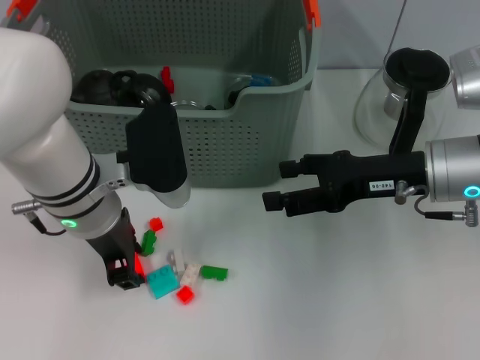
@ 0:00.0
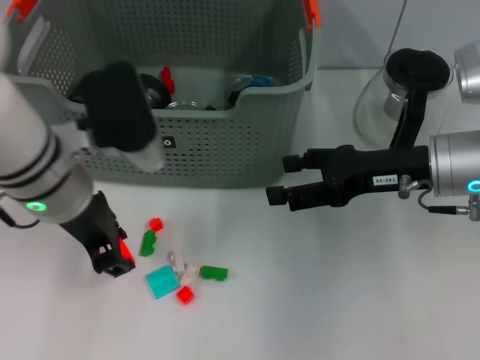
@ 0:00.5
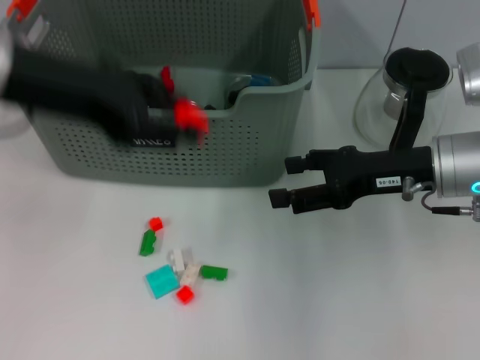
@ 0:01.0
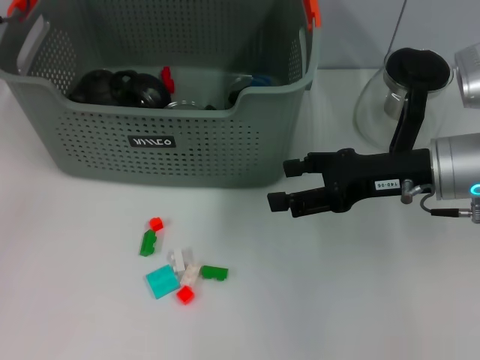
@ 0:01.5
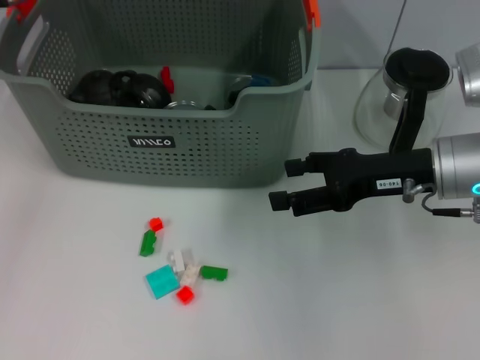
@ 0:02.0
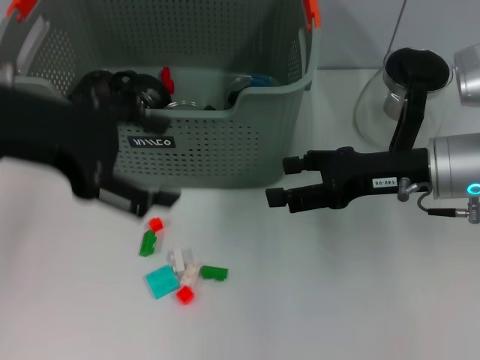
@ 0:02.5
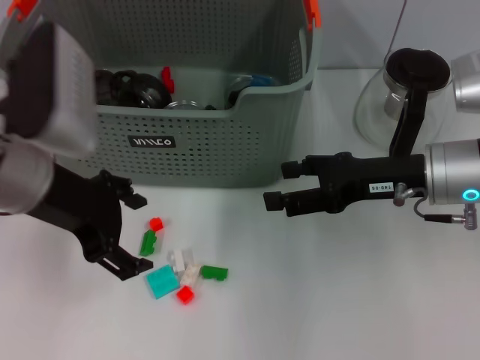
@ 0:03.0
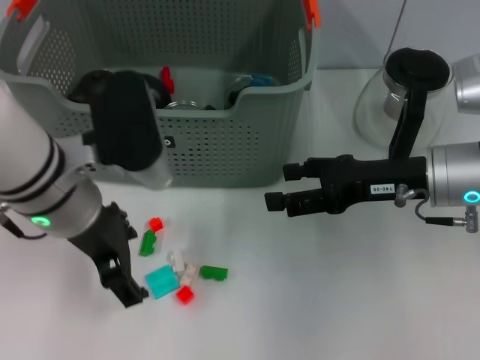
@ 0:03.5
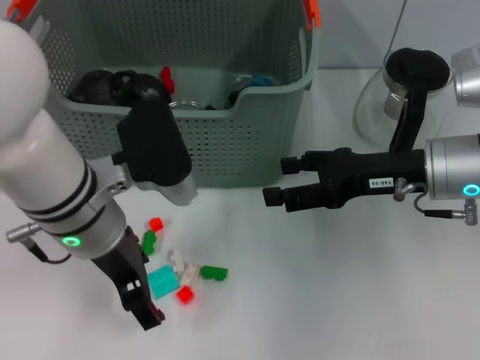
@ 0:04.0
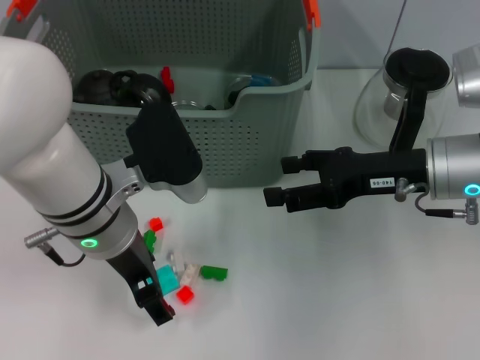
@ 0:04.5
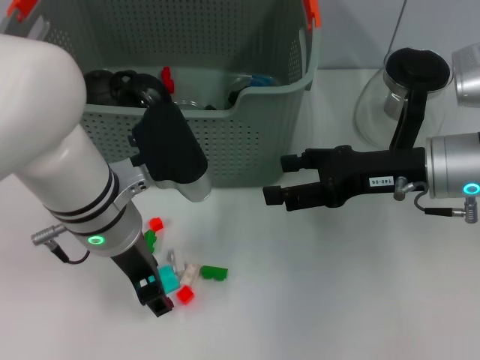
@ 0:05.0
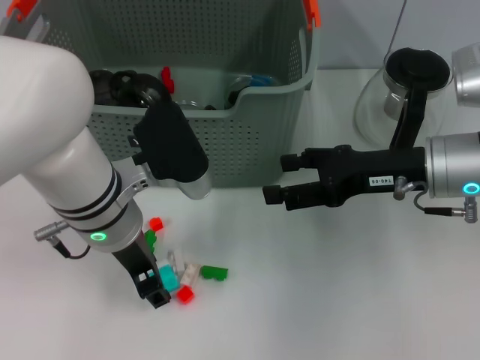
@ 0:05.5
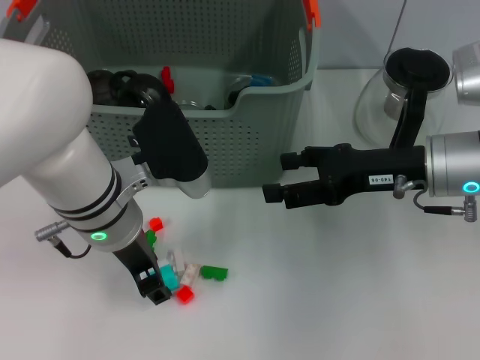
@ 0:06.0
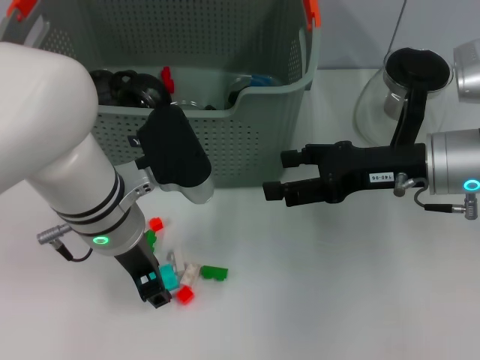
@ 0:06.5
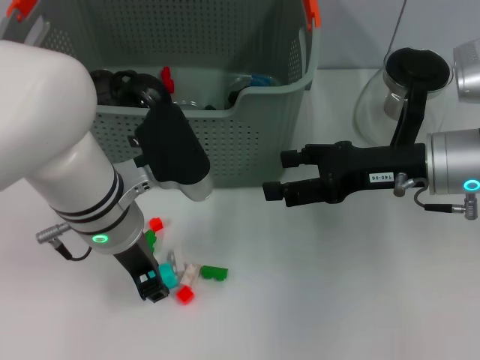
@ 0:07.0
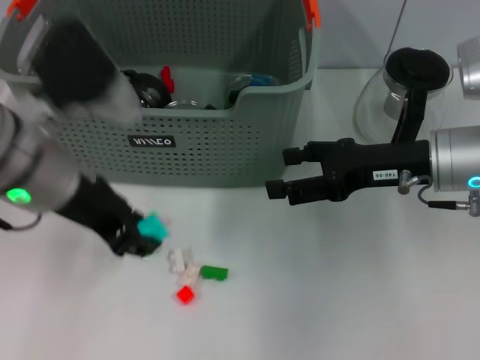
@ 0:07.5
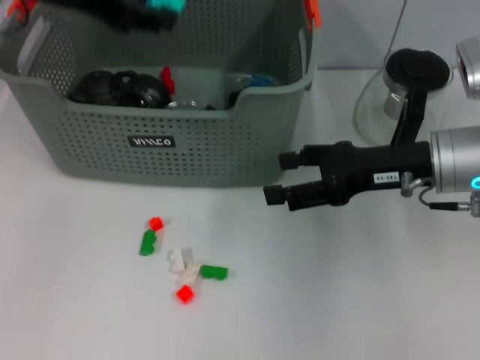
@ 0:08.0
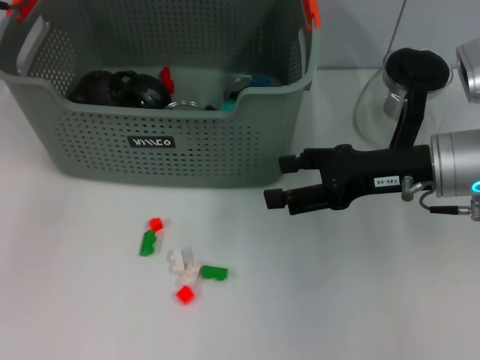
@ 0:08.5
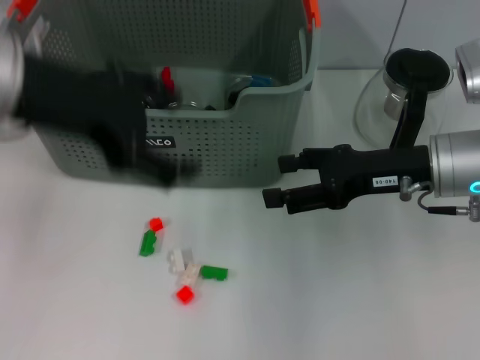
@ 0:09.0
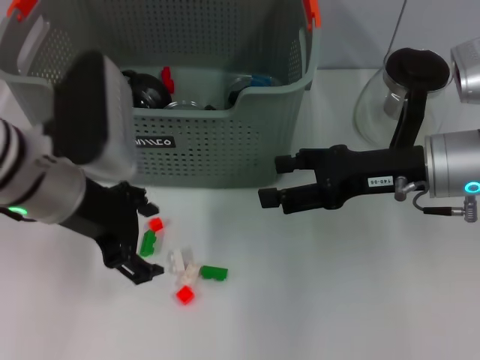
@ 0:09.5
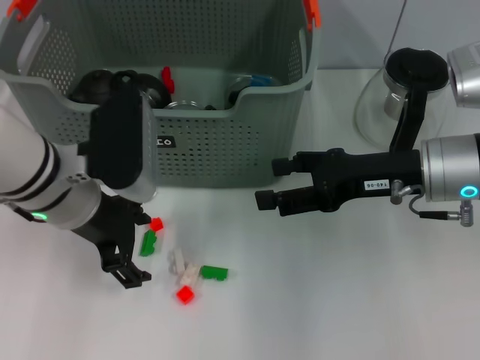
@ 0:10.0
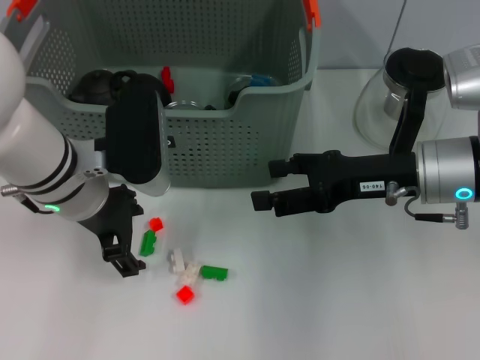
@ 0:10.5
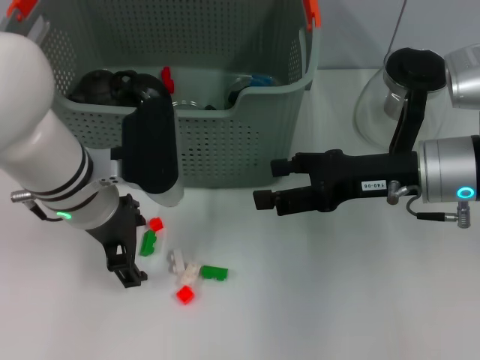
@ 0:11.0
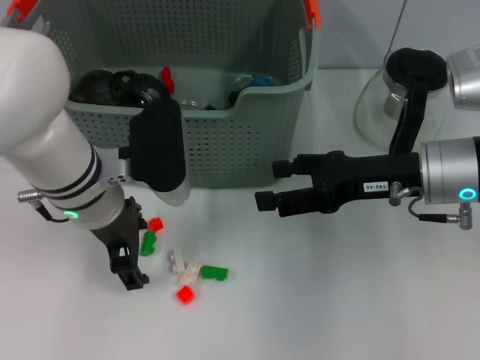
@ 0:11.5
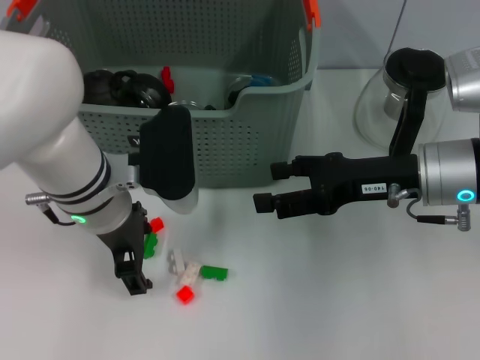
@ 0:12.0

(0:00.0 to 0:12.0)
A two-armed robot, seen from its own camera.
Task of the whole recording: pick up the teacup on the table and place it into the storage bin, pick up the block on the table and place it into the storage bin.
Step, 0:00.5 - 0:02.0: Place the orange block in the storage box with left gripper.
Step, 0:02.5 - 0:07.0: Grasp the light blue block with left gripper.
Step, 0:07.5 - 0:08.0: Place the light blue block in the storage box with left gripper.
0:00.0 - 0:02.0: The left gripper moves upward, to the left and forward, about 20 cm.
0:02.0 - 0:04.0: The left gripper shifts approximately 20 cm backward, downward and to the right.
0:04.0 - 0:06.0: There are only small adjustments of the grippers.
0:06.0 - 0:08.0: The left gripper moves upward and to the left, about 20 cm.
0:08.0 - 0:10.0: The left gripper travels downward by about 15 cm, and opens its fingers.
0:10.0 - 0:12.0: The grippers move only a little.

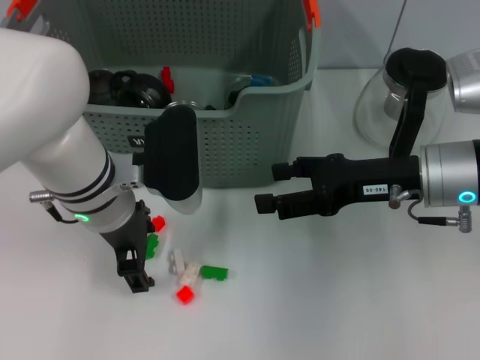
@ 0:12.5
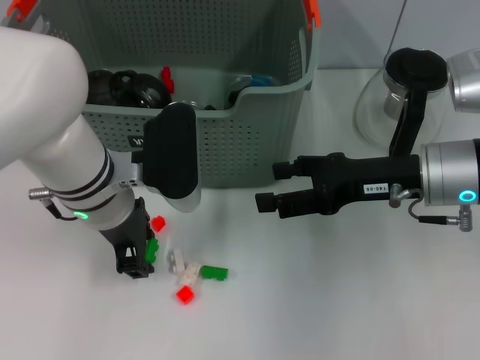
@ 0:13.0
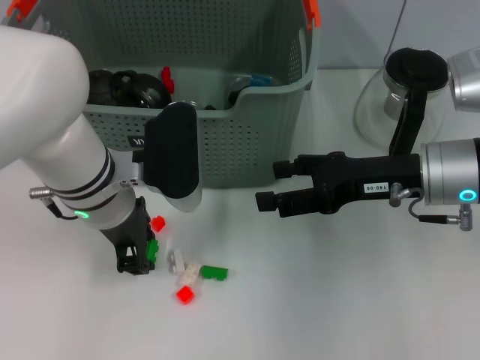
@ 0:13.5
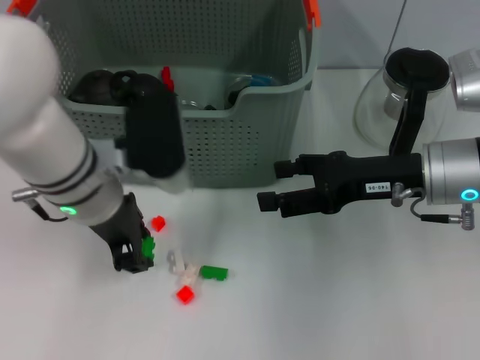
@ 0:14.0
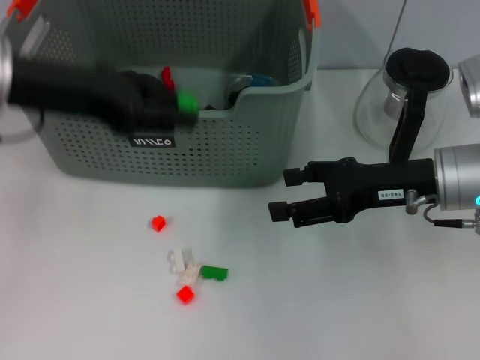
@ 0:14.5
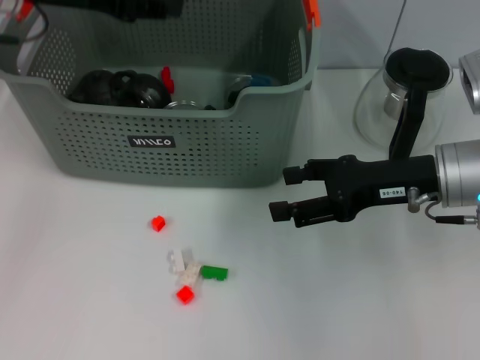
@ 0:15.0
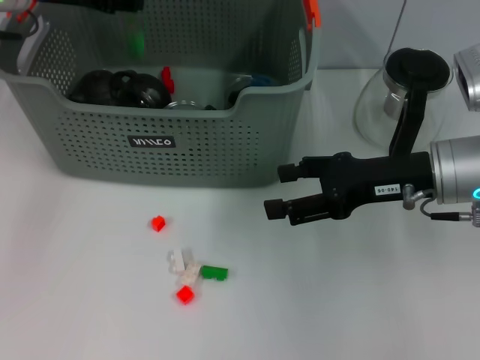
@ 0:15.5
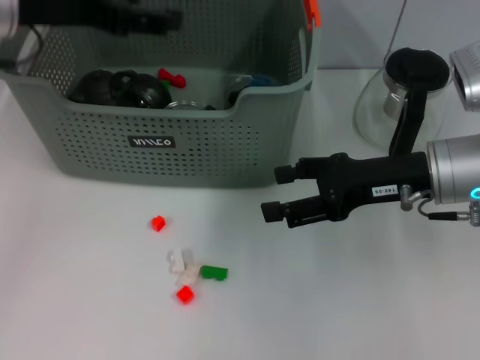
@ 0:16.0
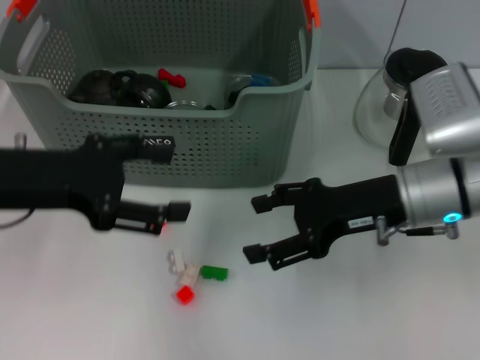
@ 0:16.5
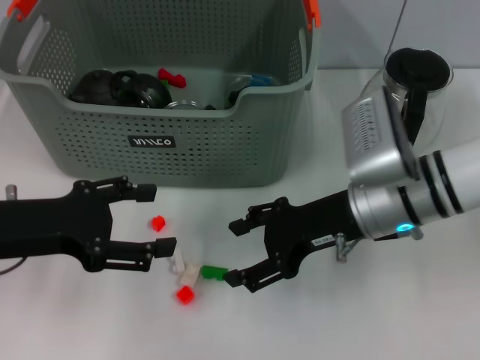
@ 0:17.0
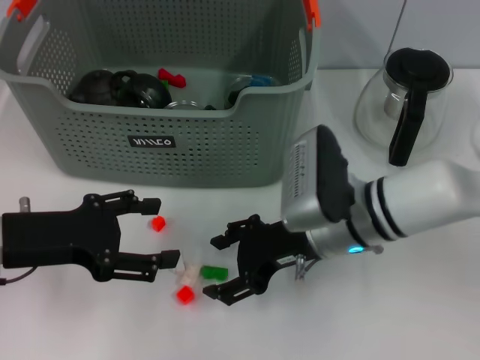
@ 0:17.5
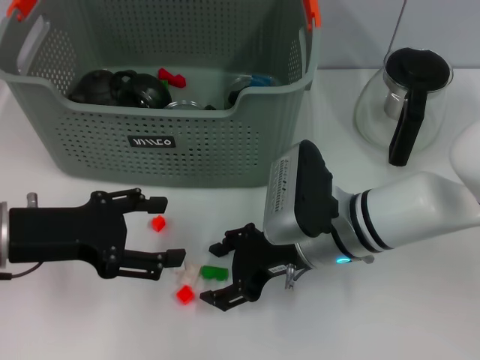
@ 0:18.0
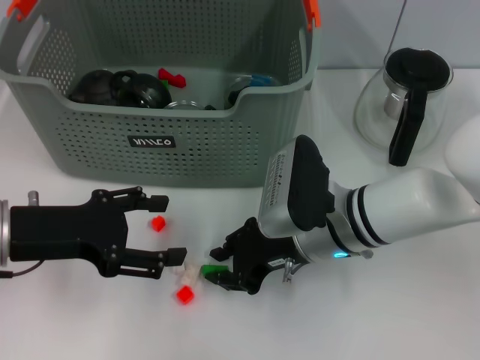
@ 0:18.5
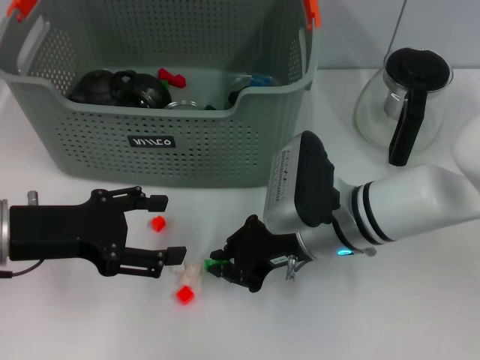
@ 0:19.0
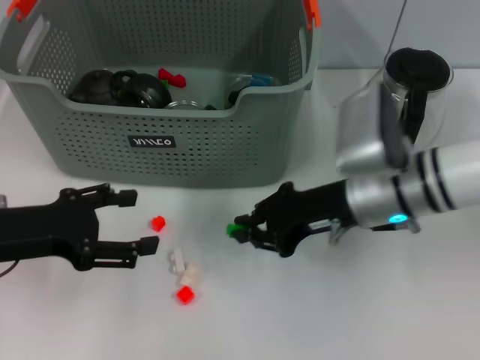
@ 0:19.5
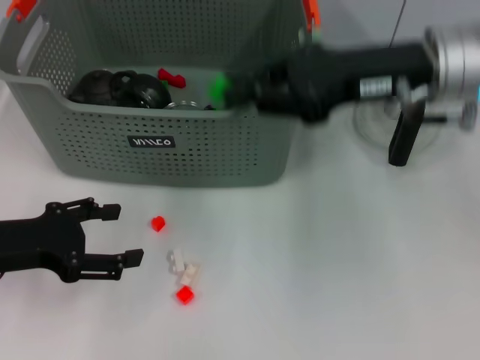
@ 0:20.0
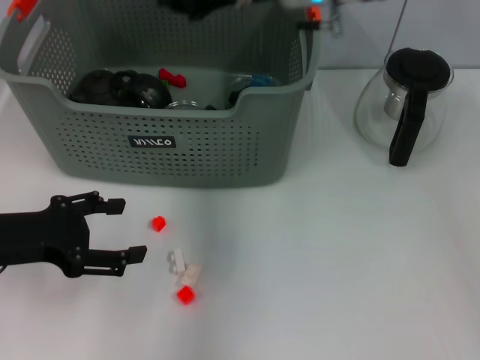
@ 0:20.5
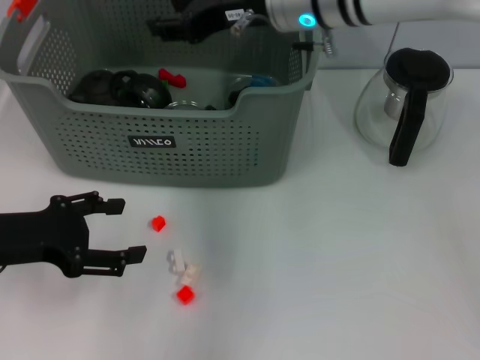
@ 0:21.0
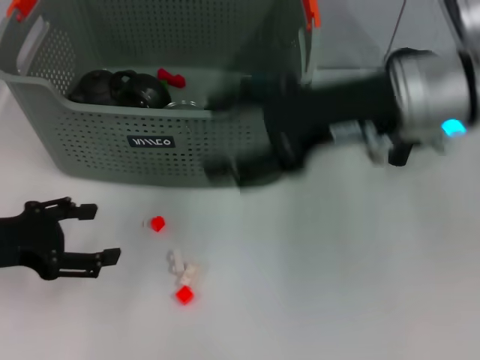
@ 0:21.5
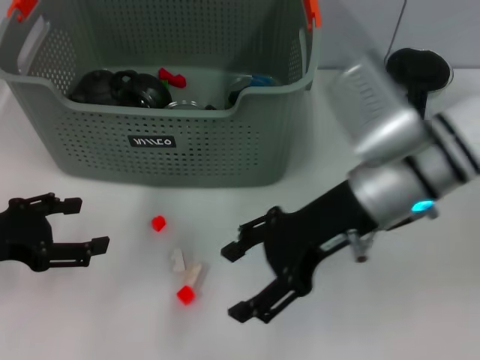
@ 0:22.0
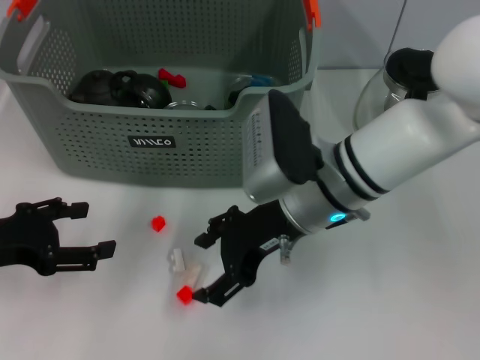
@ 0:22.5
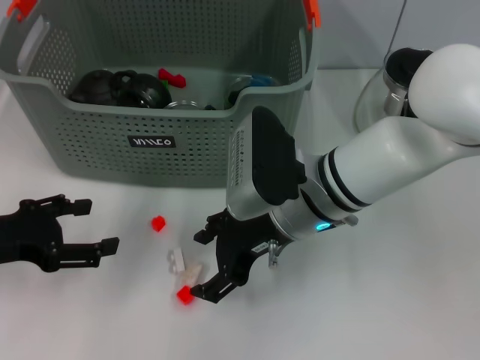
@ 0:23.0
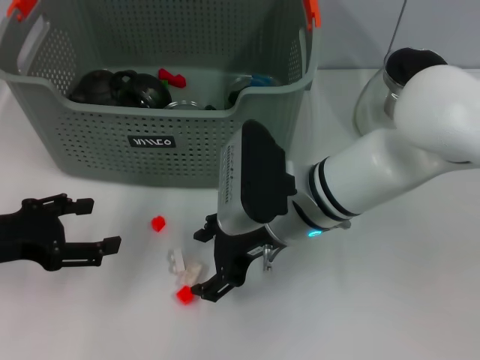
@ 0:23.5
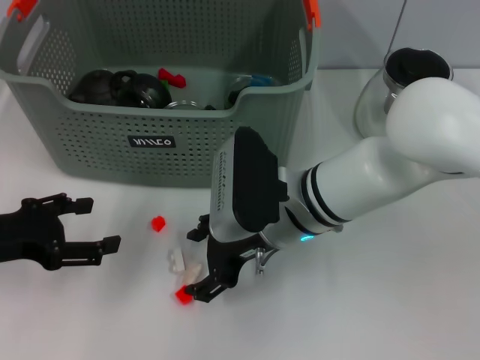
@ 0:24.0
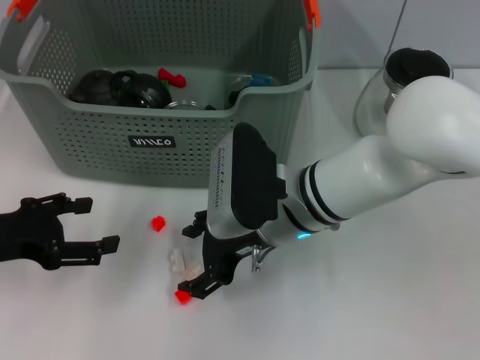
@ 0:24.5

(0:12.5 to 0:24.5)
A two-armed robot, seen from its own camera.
Task of the whole recording: pick up the teacup on the table and place it into the storage bin, pick up the block on the table and place it into the storage bin.
Step, 0:14.0 - 0:15.5: Place the green block in the storage box with left gripper.
Step, 0:16.0 - 0:19.0: Grasp the green block with right gripper.
Step, 0:19.5 - 0:21.0: Place the green block in the storage box with right gripper.
0:12.5 - 0:14.5: The left gripper goes roughly 15 cm upward and to the left, and closes up.
0:14.5 - 0:16.5: The left gripper goes about 5 cm downward, moves approximately 10 cm forward and comes back, and opens its fingers.
0:16.5 - 0:18.5: The right gripper moves to the left and downward, roughly 10 cm, and closes. The left gripper heads downward, covering about 5 cm.
0:18.5 - 0:20.5: The right gripper is displaced upward and forward by approximately 20 cm, and closes its fingers.
0:20.5 - 0:22.5: The right gripper is displaced downward and backward by roughly 15 cm, and opens.
0:22.5 - 0:24.5: The grippers stay close to where they were, moving slightly.

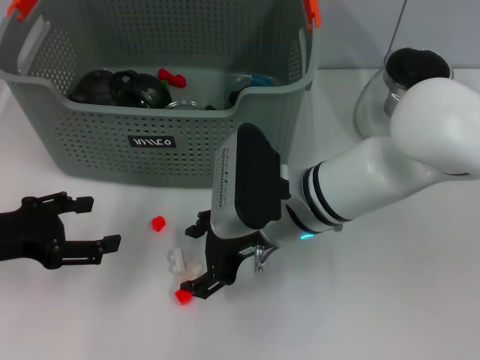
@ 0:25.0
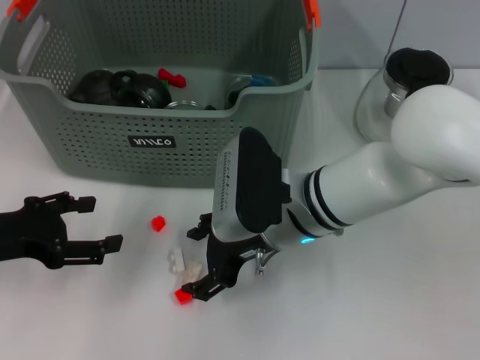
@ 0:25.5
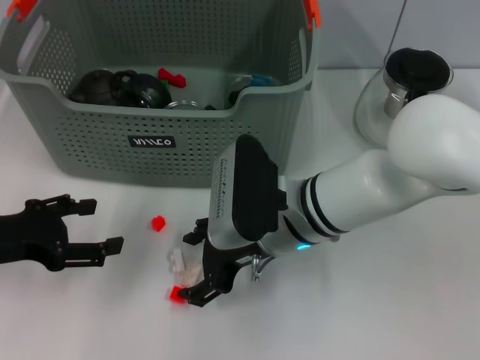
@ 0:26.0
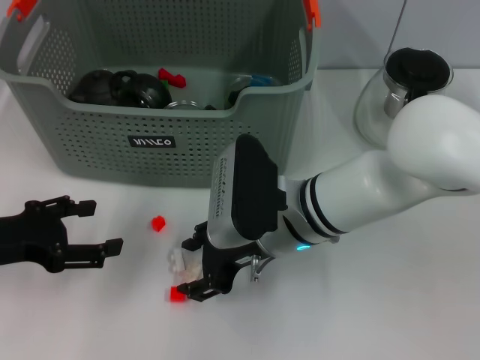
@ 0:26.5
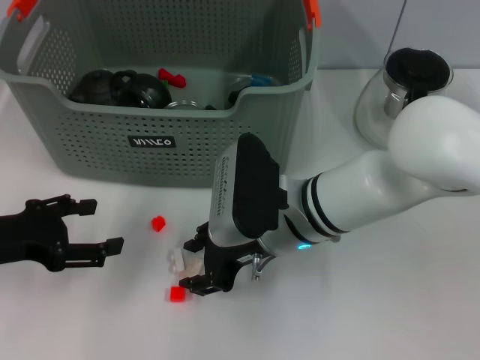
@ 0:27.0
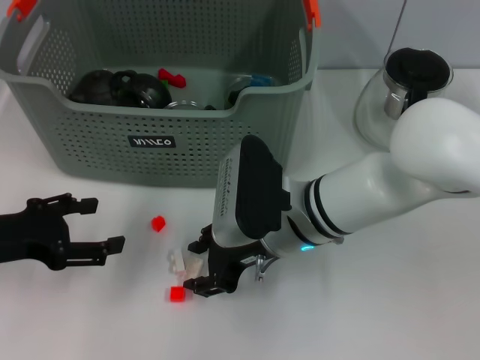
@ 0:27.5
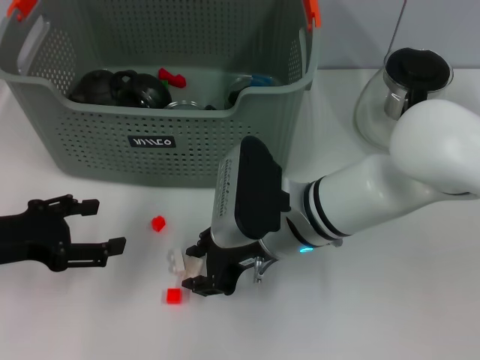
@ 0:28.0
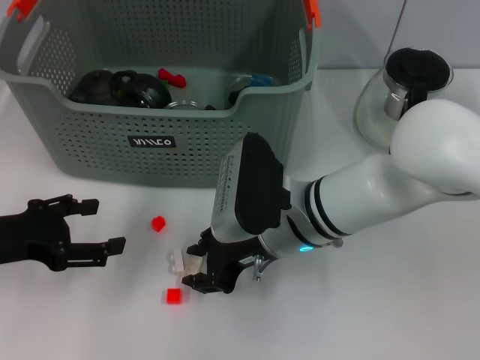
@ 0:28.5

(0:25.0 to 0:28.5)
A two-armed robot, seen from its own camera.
Task of the whole recording: pick up the teacup on the table and place it into the storage bin, pick up the block on the table and place it into the storage bin.
0:25.0 - 0:27.0: The right gripper closes.
0:27.0 - 0:28.5: Both grippers stay about where they are.
